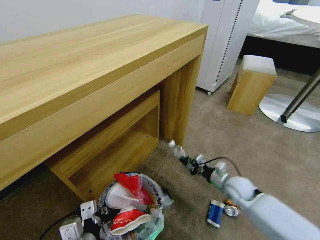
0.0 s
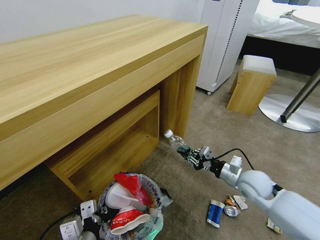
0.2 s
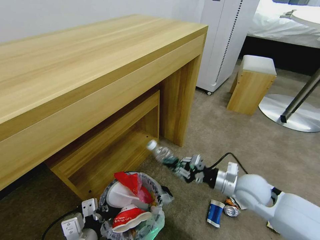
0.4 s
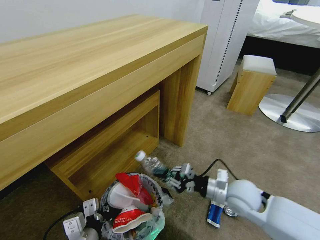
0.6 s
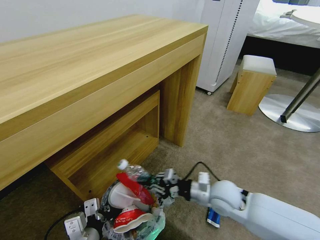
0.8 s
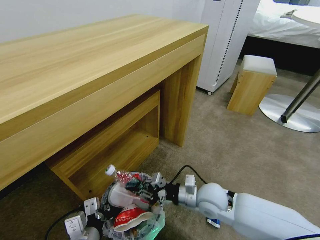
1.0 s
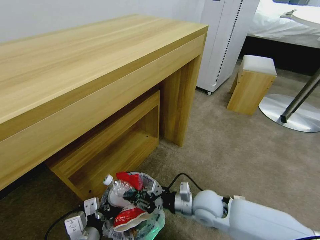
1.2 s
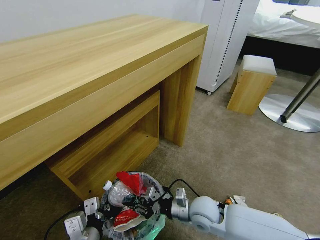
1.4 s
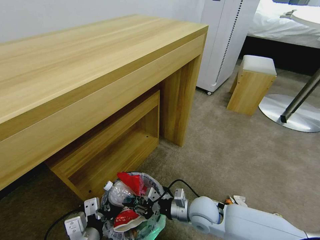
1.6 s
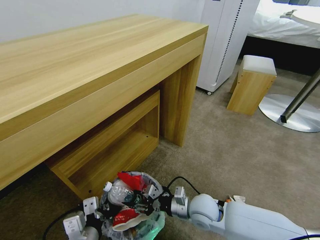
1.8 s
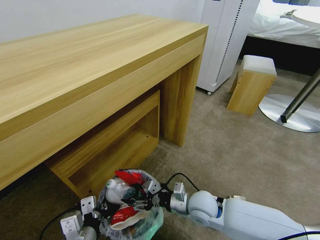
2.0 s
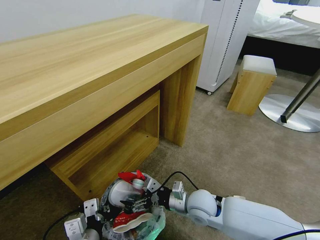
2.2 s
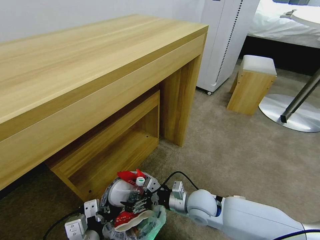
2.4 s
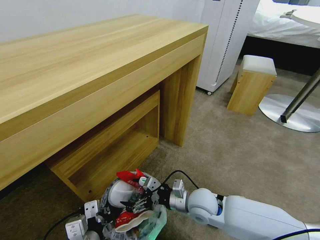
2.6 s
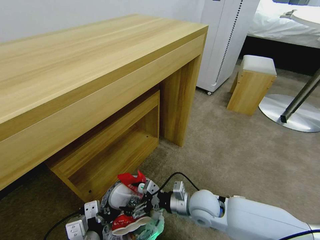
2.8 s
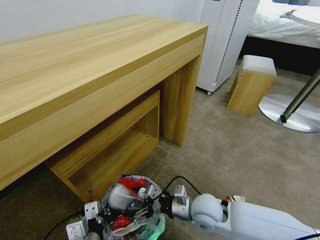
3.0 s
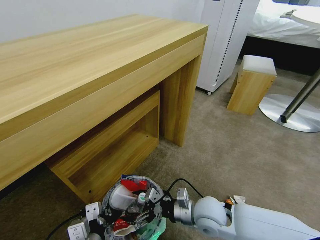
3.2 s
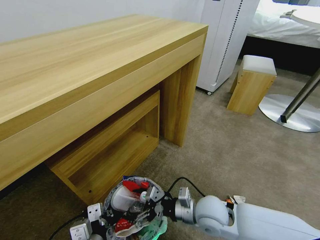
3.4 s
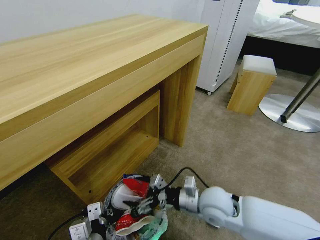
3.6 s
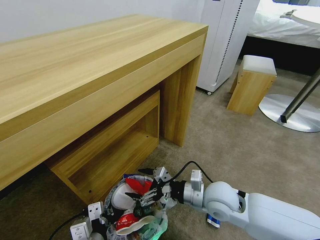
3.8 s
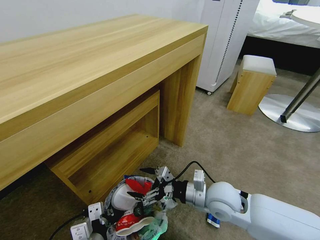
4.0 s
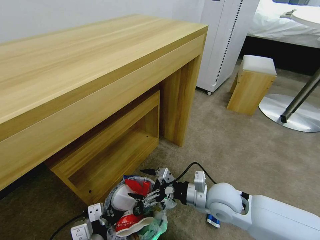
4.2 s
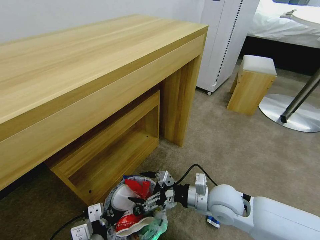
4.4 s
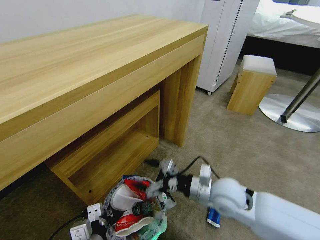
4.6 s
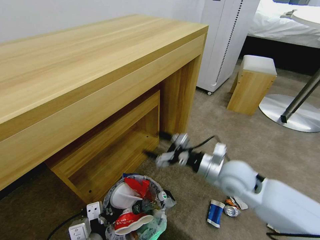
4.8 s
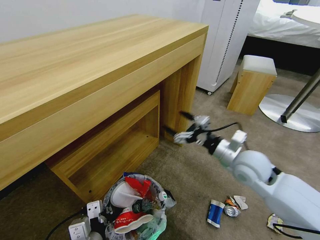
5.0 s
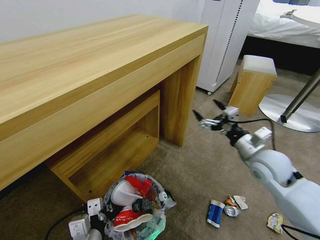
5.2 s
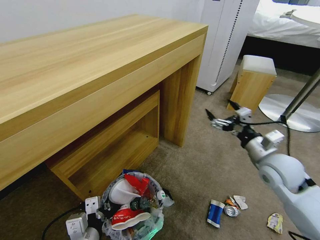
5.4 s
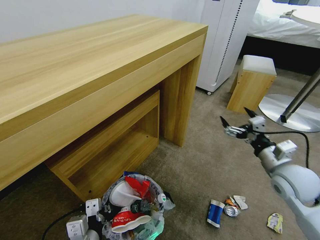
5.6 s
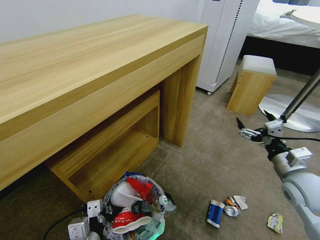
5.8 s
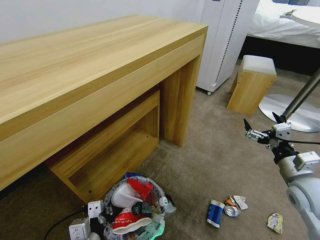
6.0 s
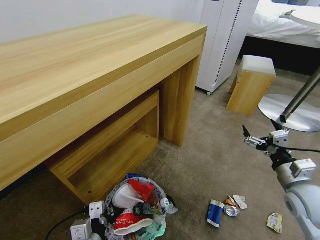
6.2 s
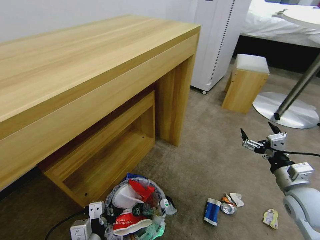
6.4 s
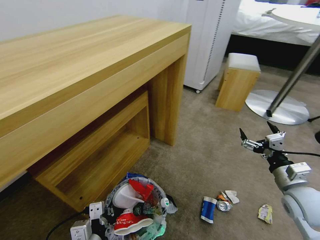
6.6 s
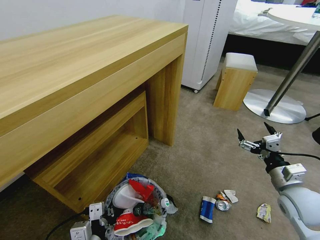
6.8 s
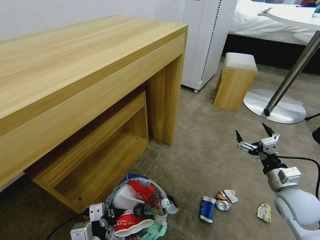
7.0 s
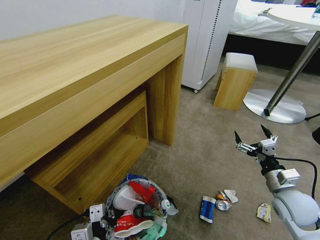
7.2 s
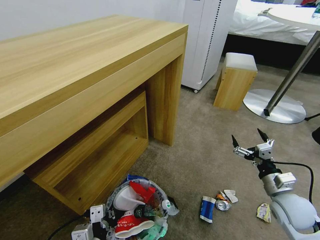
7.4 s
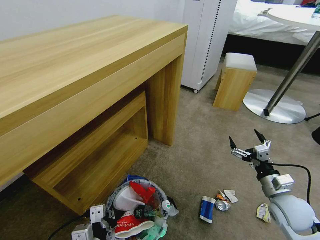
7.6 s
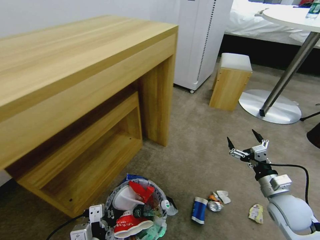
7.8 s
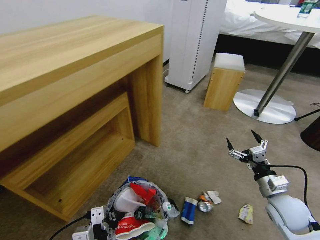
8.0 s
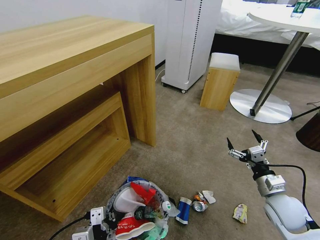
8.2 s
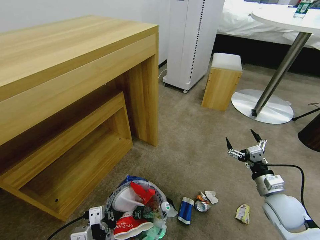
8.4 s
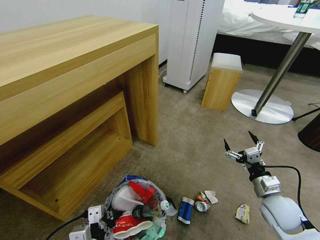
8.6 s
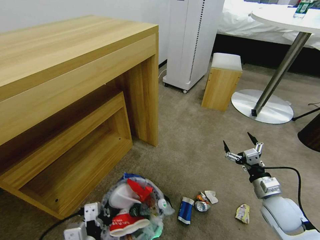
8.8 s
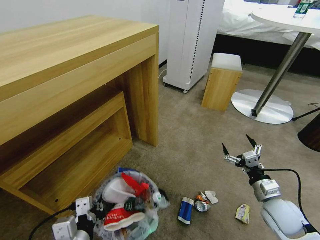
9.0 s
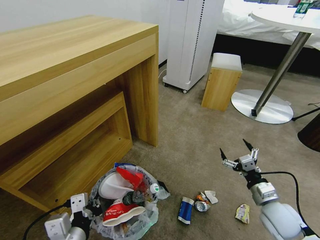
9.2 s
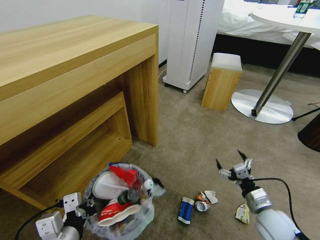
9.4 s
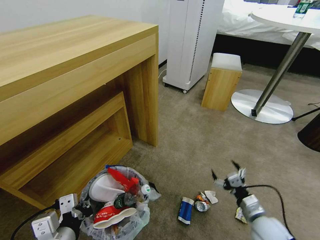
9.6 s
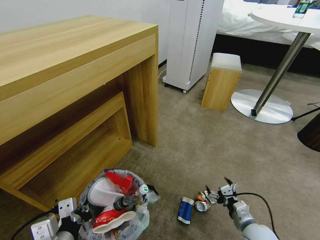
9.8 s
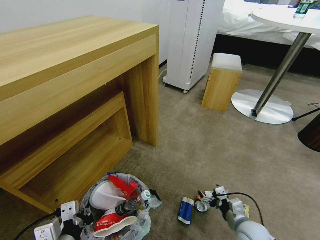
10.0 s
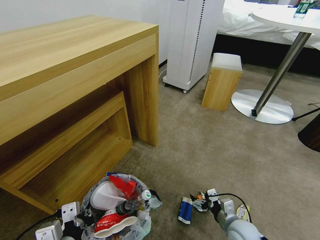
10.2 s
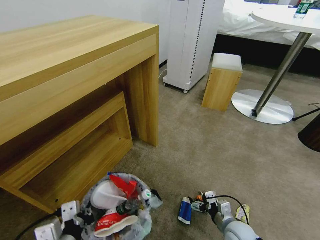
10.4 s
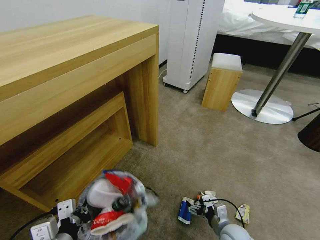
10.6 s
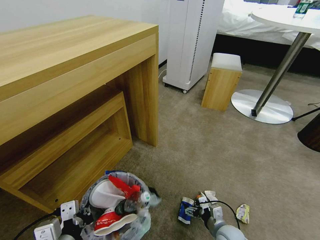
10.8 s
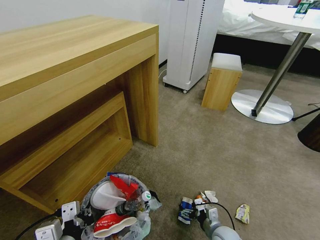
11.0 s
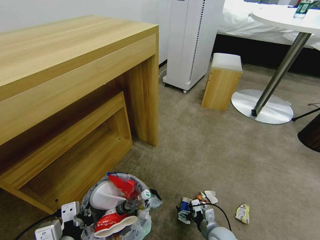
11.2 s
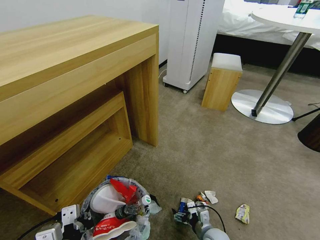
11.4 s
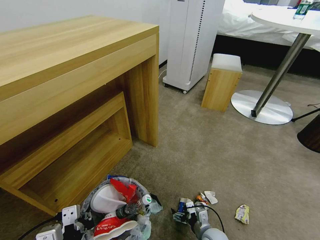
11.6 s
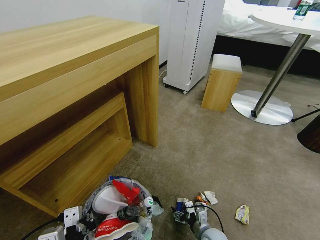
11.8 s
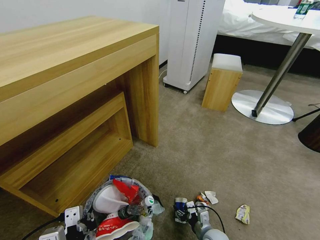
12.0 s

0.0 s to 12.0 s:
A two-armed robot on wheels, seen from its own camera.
Task of the whole recording: Pick up the trash bin and place the garbage on the floor into it.
0.0 to 1.6 s: The right gripper travels to the left and backward by about 20 cm.
1.6 to 3.0 s: The right gripper opens its fingers.
3.0 to 4.4 s: The right gripper travels upward by roughly 5 cm.
4.4 to 6.0 s: The right gripper heads to the right, covering roughly 20 cm.
6.0 to 7.6 s: The right gripper moves downward, approximately 10 cm.
9.0 to 10.4 s: The right gripper is displaced downward and to the left by about 15 cm.
10.4 to 12.0 s: The right gripper is displaced downward and to the left by approximately 10 cm, and closes its fingers.

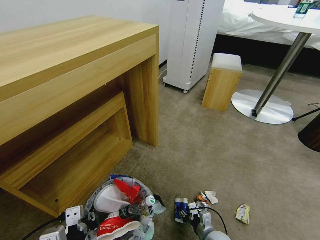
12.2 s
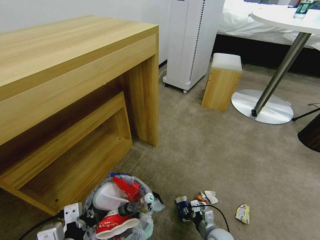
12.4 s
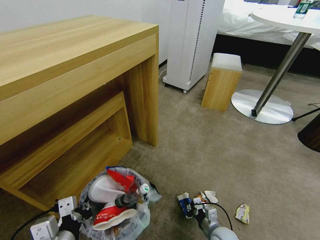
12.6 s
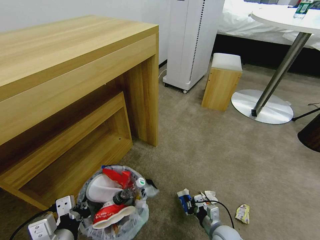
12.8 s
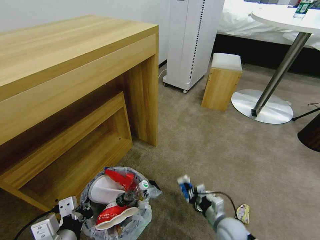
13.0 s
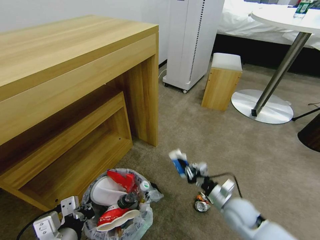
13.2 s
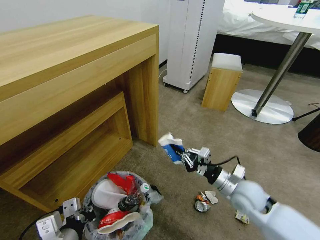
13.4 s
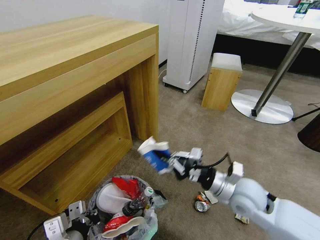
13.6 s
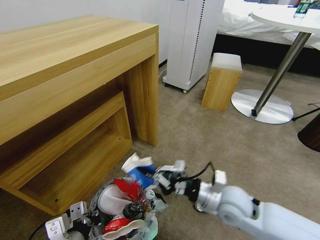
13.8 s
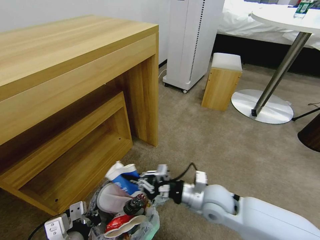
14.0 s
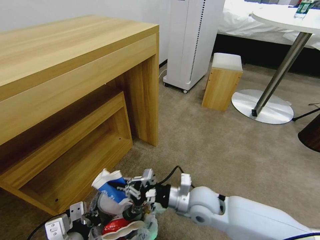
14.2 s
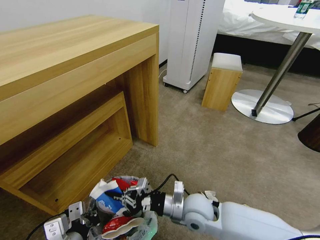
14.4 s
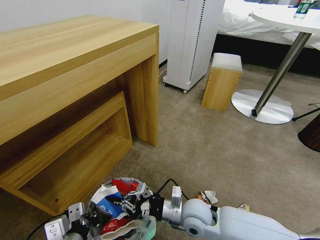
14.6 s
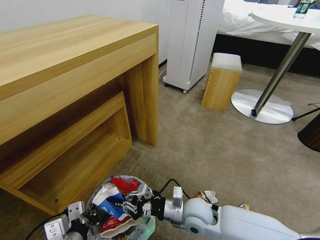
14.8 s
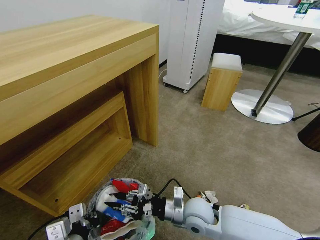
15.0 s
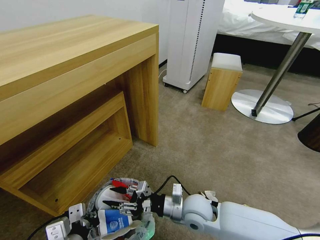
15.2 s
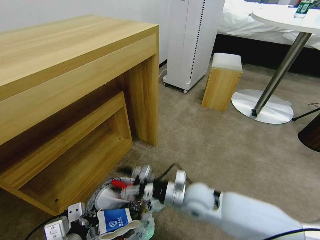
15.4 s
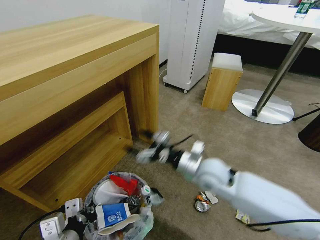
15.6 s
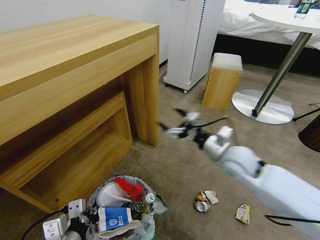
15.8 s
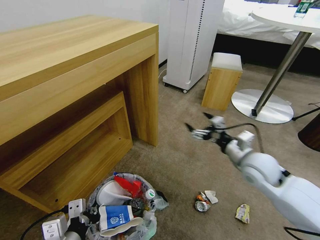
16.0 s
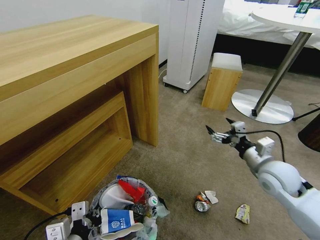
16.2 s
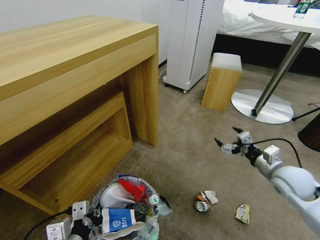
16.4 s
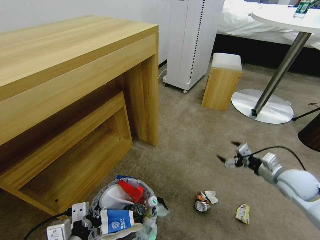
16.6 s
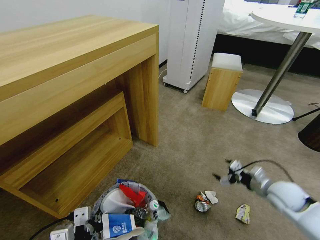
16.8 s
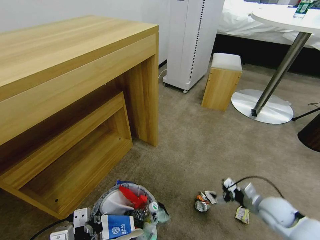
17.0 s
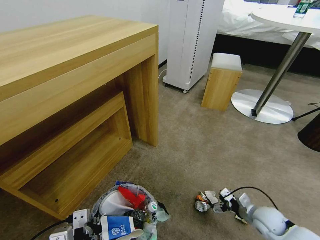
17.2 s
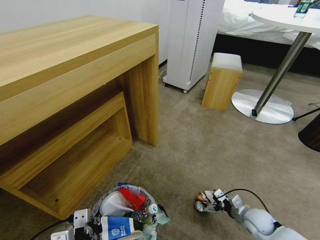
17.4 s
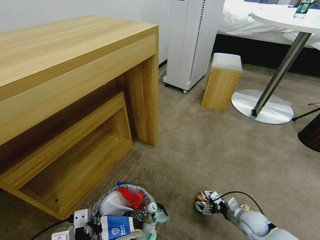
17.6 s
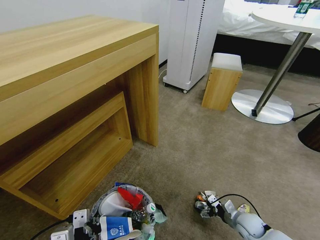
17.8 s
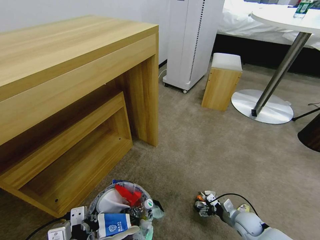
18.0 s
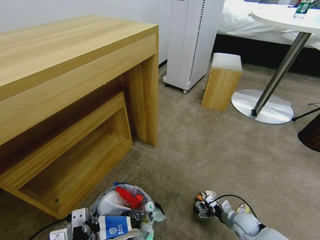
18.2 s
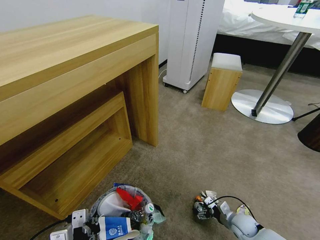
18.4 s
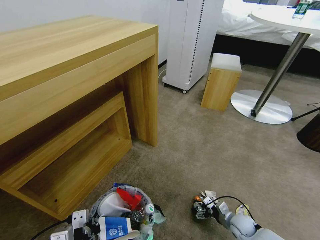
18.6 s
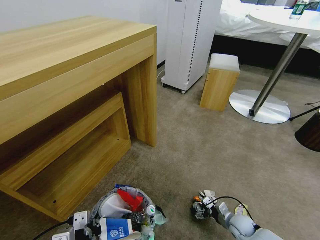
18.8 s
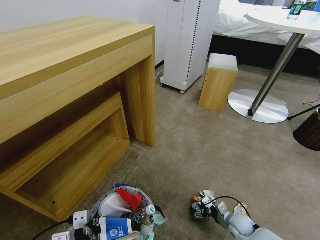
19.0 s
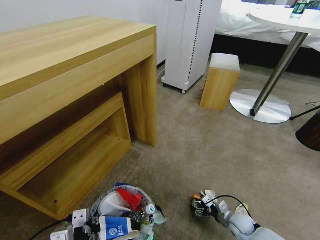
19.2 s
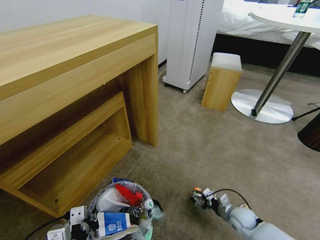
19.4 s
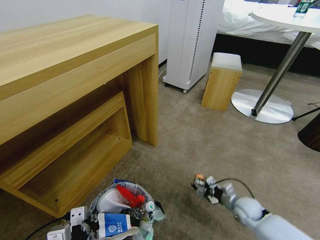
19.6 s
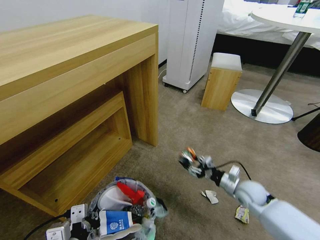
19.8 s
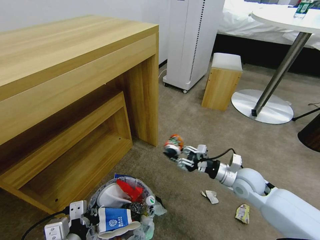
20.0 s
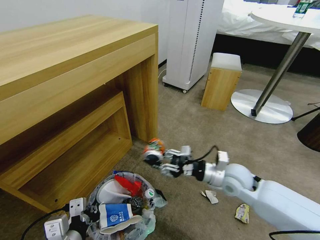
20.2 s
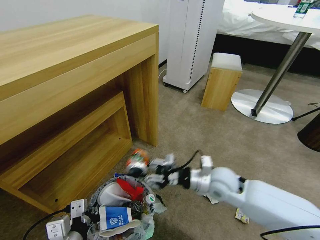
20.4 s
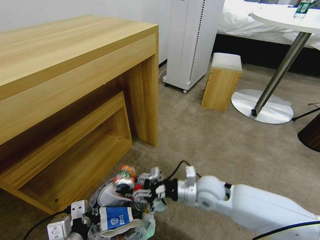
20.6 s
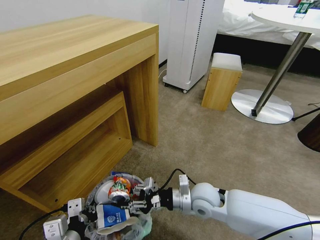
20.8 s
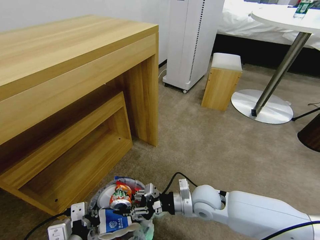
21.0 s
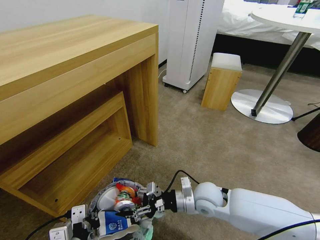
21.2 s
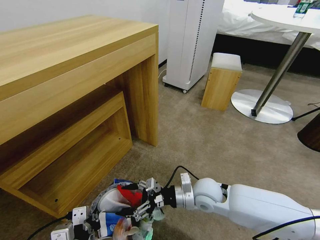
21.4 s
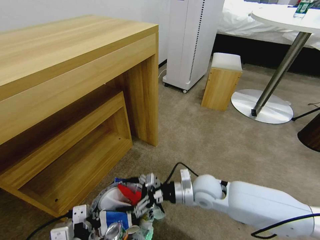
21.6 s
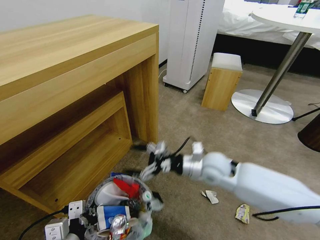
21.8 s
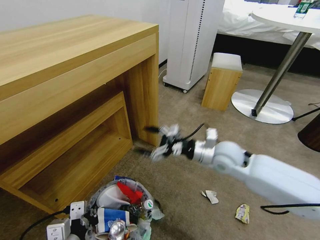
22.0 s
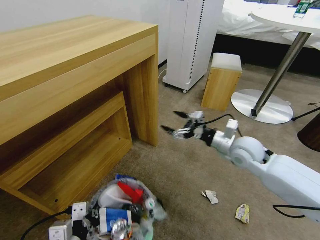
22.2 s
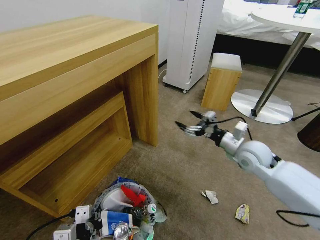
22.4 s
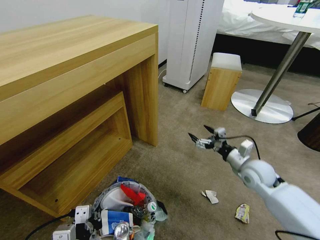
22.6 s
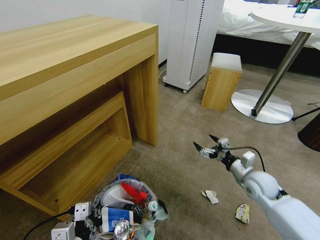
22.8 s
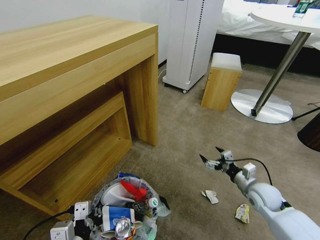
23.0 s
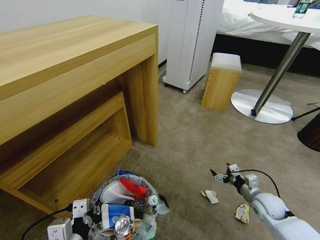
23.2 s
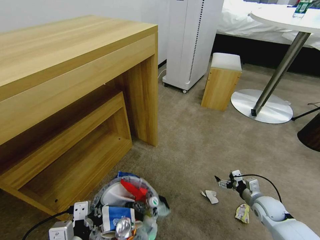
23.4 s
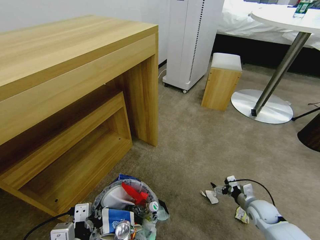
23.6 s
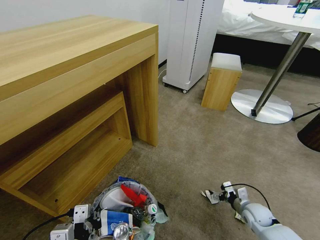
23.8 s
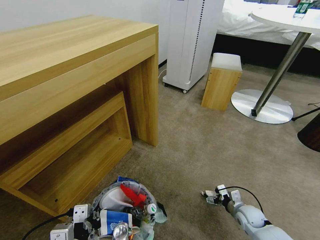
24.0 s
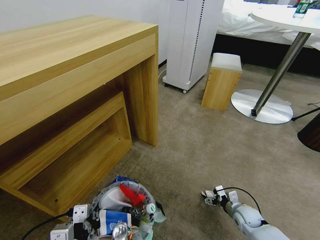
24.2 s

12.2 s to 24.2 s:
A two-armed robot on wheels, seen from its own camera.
Task of the whole recording: Pick up the trash bin and place the garbage on the floor into it.
12.2 to 13.8 s: The right gripper heads upward, covering about 25 cm, and closes its fingers.
13.8 to 15.2 s: The right gripper goes about 10 cm to the left and downward, and opens.
15.2 to 16.6 s: The right gripper shifts some 30 cm to the right, and opens.
16.6 to 18.2 s: The right gripper is displaced downward by roughly 25 cm.
18.2 to 19.8 s: The right gripper shifts roughly 15 cm upward and forward, and closes.
19.8 to 21.2 s: The right gripper goes roughly 15 cm to the left.
21.2 to 22.6 s: The right gripper travels to the right by approximately 20 cm, and opens.
22.6 to 24.2 s: The right gripper goes approximately 25 cm downward.
